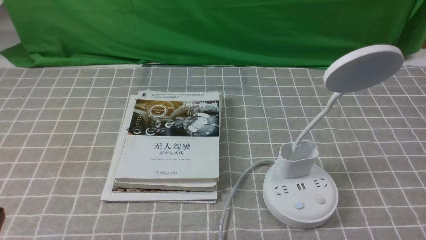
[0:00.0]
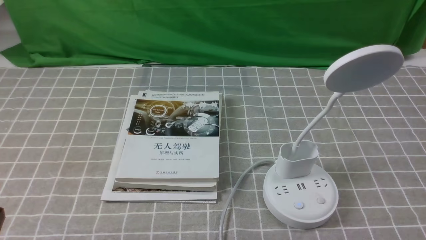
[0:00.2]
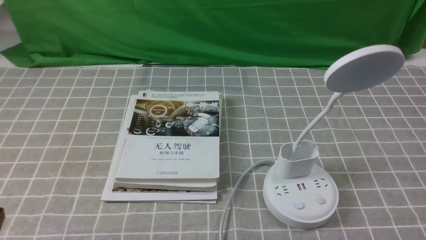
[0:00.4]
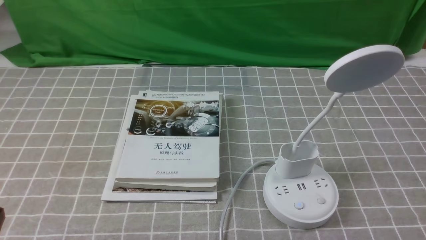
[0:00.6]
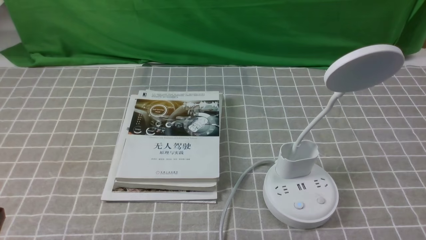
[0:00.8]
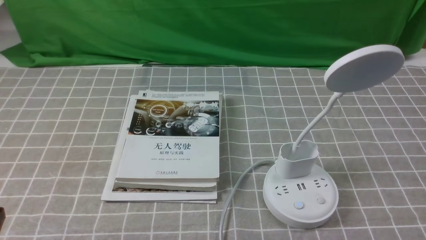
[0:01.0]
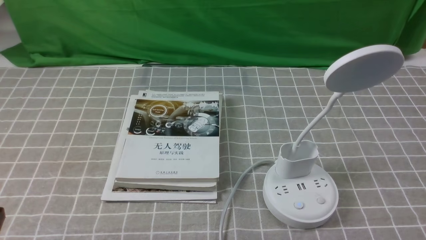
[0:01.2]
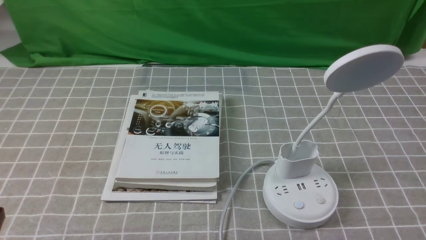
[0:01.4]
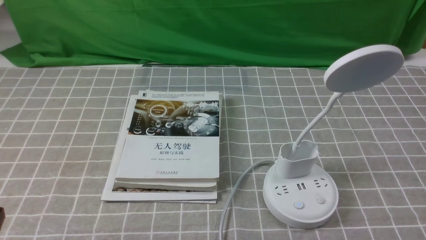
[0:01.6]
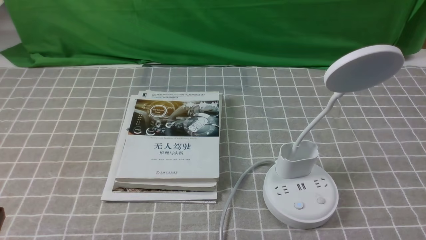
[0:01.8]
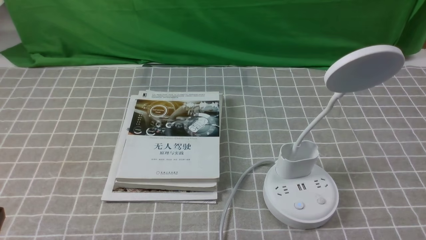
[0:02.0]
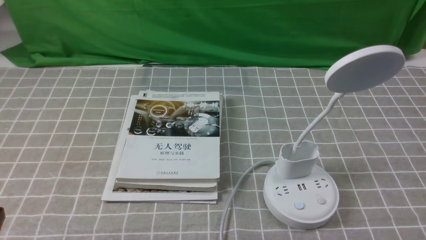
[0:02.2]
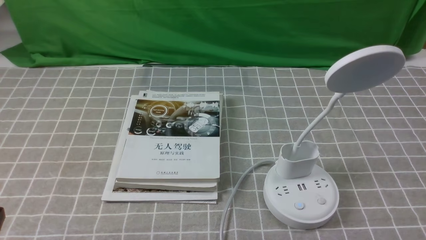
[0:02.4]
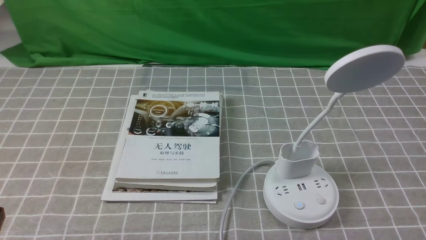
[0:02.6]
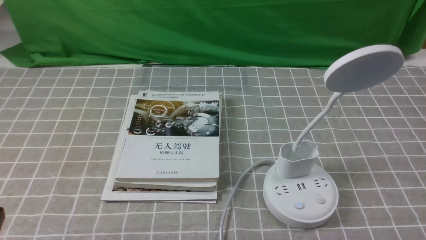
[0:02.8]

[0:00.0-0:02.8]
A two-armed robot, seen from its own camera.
Task of the whole recording: turn off the desk lamp on the grey coffee tablecloth by hand.
0:01.4 to 0:02.8: Both grippers stay about where they are.
